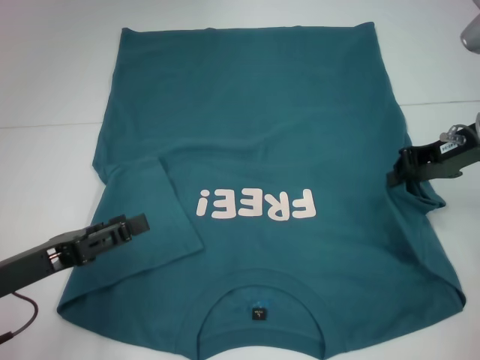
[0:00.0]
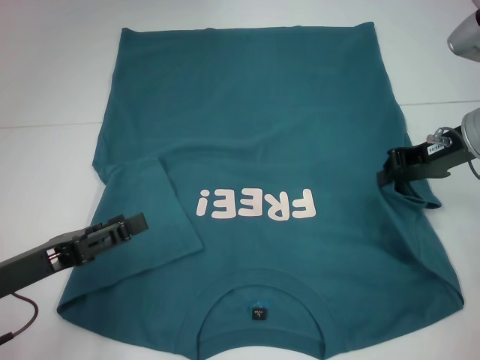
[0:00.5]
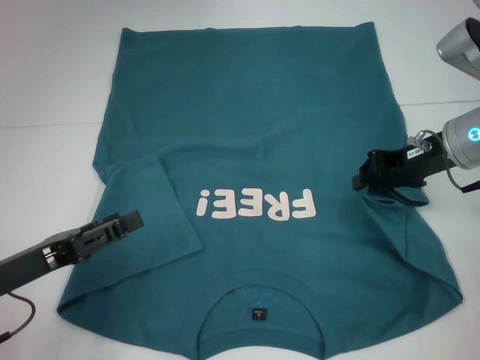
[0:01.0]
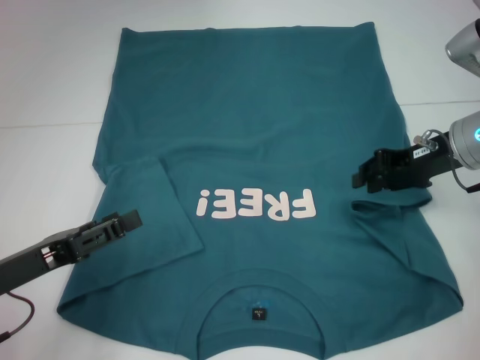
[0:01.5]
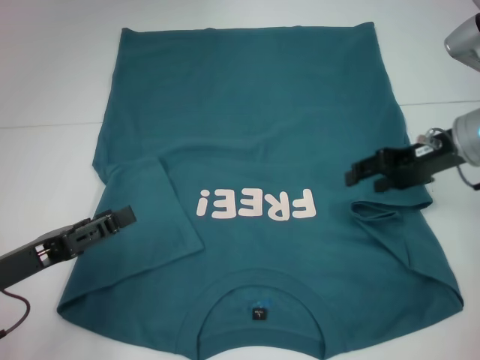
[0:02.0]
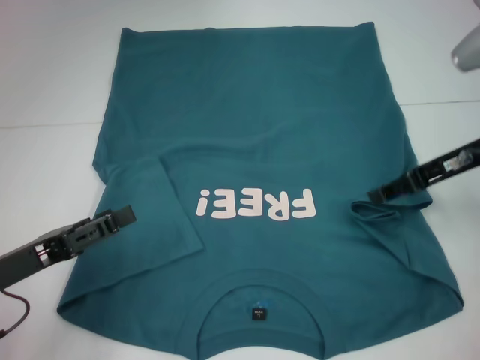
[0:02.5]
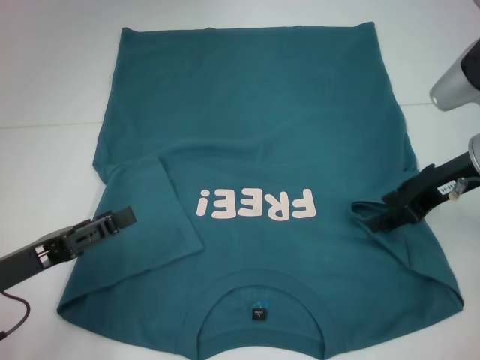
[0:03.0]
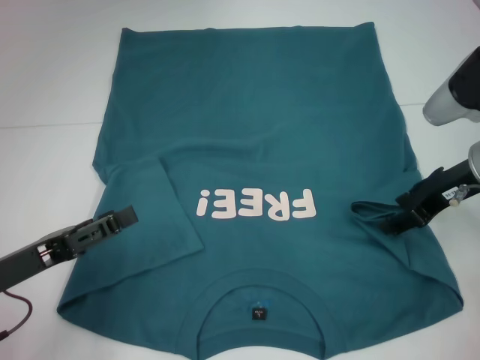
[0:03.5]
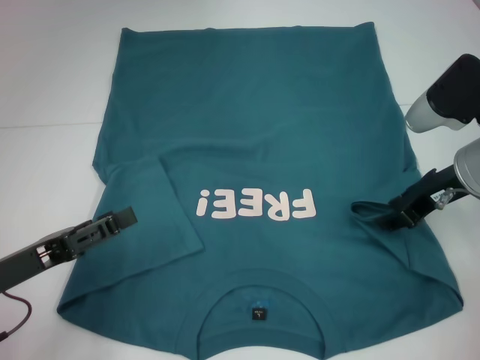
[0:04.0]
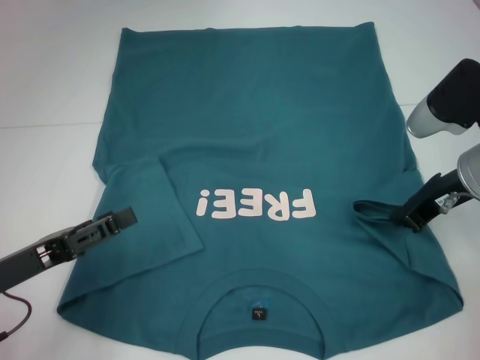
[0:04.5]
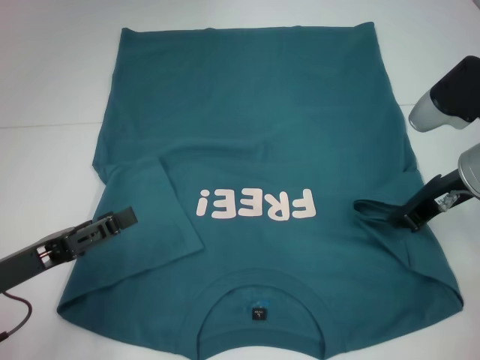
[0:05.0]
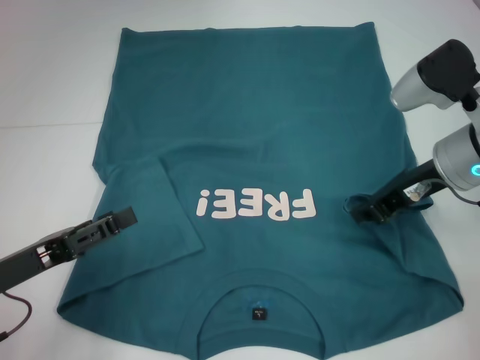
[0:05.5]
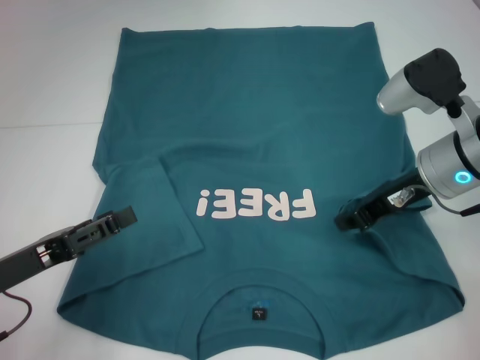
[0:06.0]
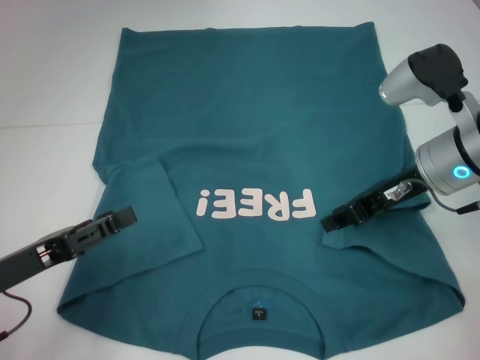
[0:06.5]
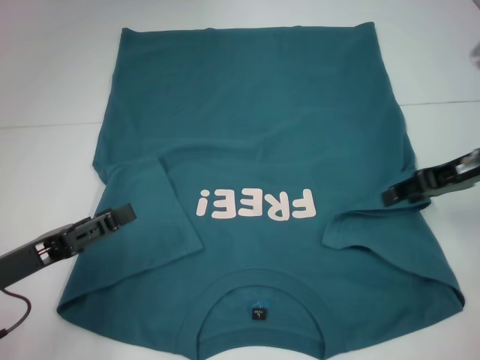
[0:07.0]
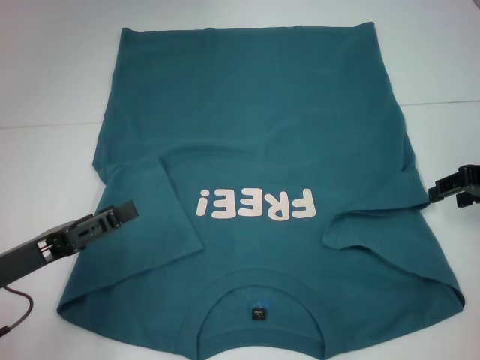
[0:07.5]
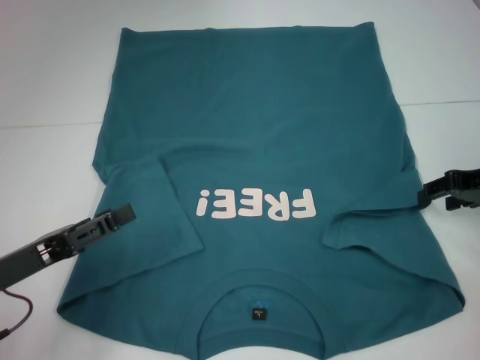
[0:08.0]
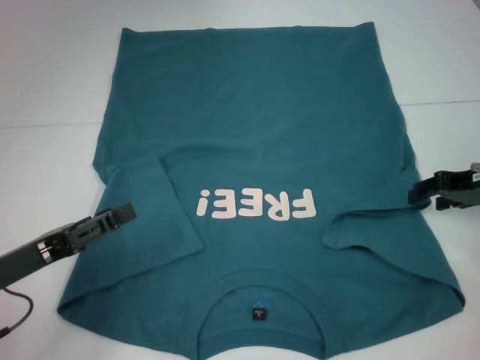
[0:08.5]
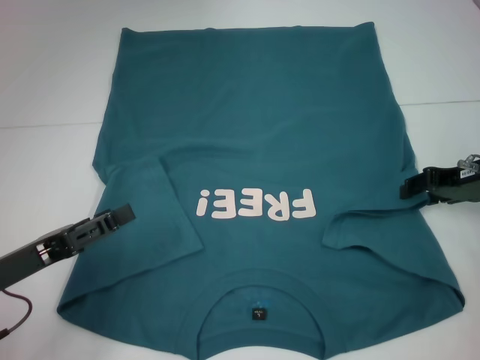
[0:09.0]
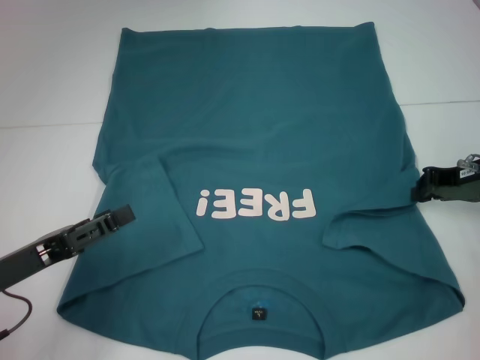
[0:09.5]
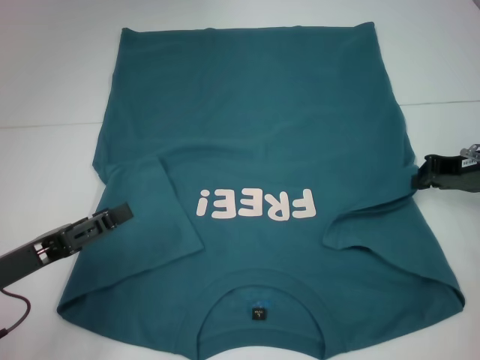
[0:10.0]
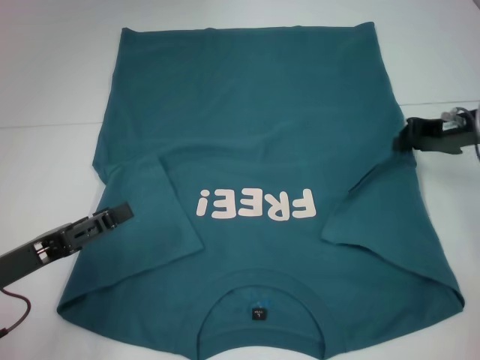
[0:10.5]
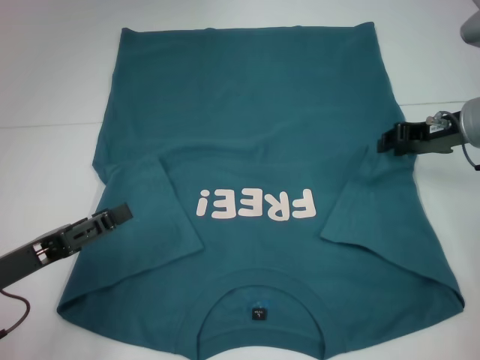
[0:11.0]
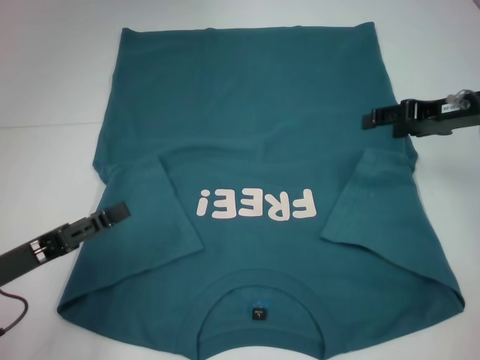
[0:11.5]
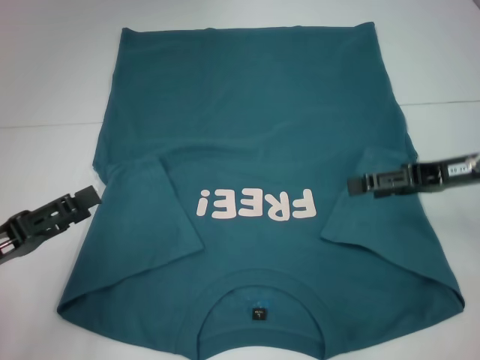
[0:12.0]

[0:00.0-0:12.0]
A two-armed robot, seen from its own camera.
Step, 0:00.0 to 0:11.0: Fold the bottom right sleeve to the right.
0:00.0 to 0:02.0: The right gripper opens.
0:04.0 to 0:06.0: The right gripper closes.
0:06.0 to 0:08.0: The right gripper travels to the right by some 10 cm, and opens its fingers.
0:08.0 to 0:10.0: The right gripper closes.
0:10.0 to 0:12.0: The right gripper opens its fingers.

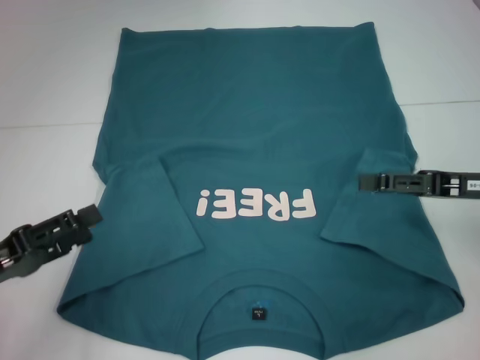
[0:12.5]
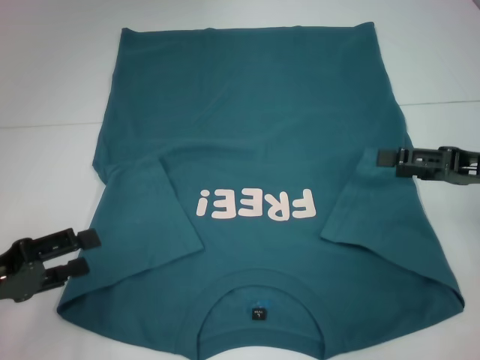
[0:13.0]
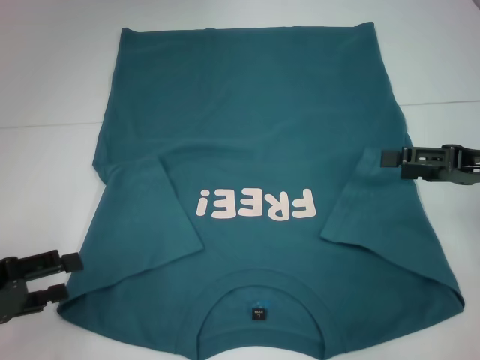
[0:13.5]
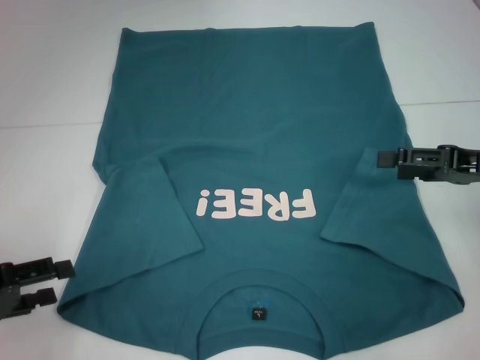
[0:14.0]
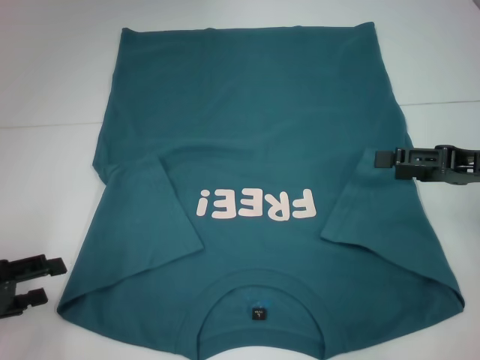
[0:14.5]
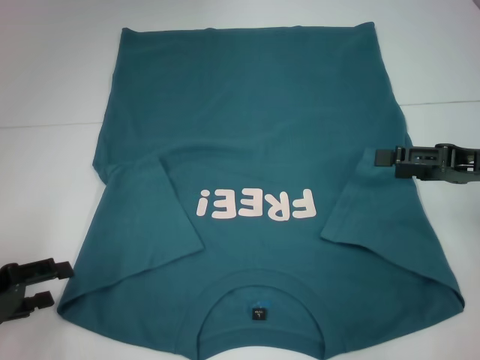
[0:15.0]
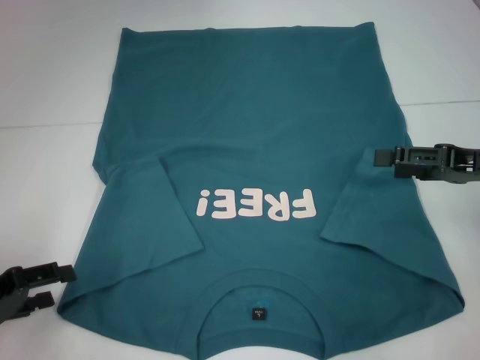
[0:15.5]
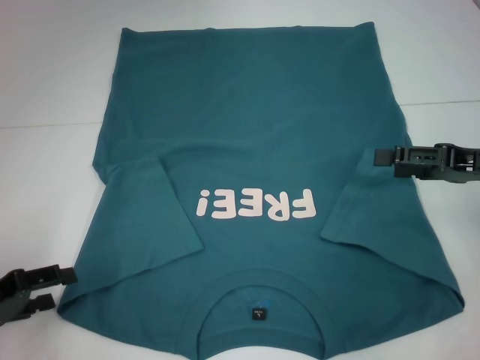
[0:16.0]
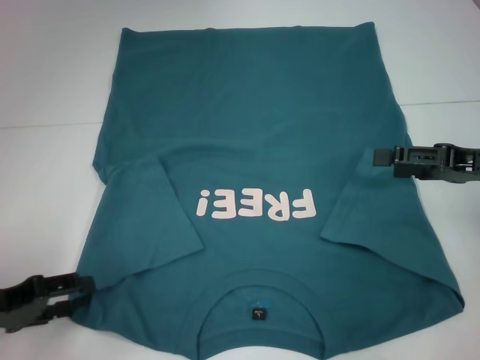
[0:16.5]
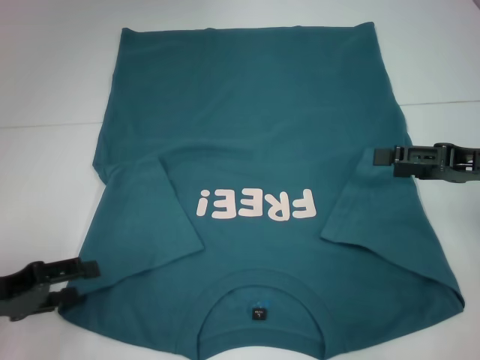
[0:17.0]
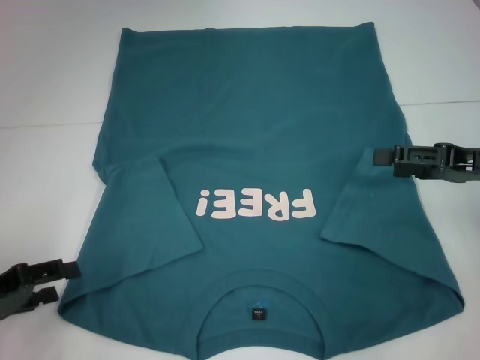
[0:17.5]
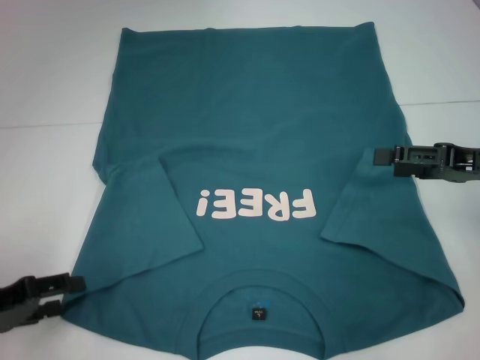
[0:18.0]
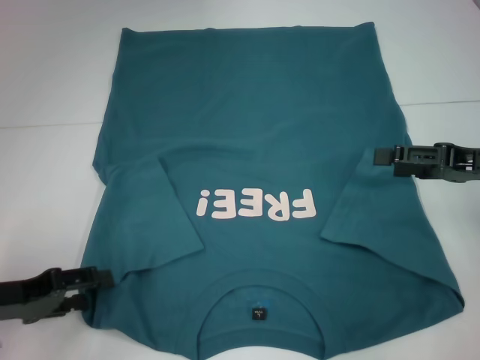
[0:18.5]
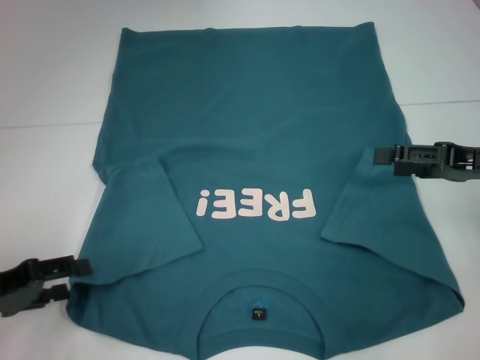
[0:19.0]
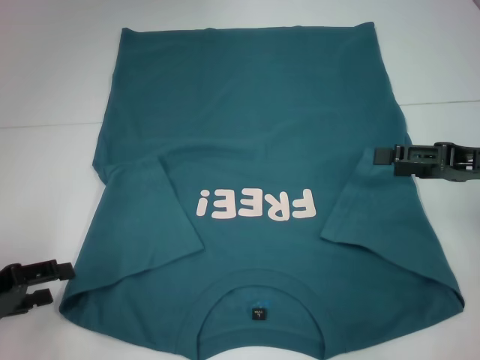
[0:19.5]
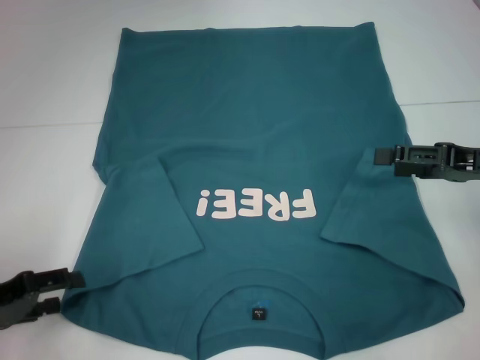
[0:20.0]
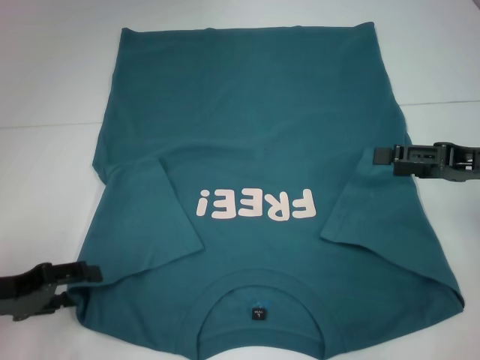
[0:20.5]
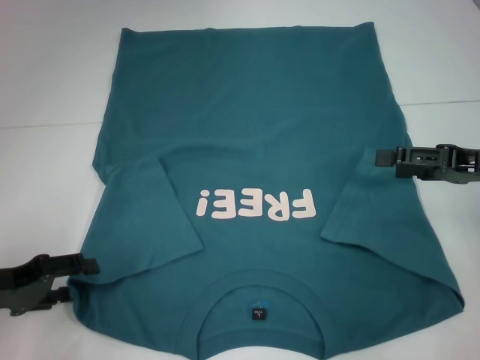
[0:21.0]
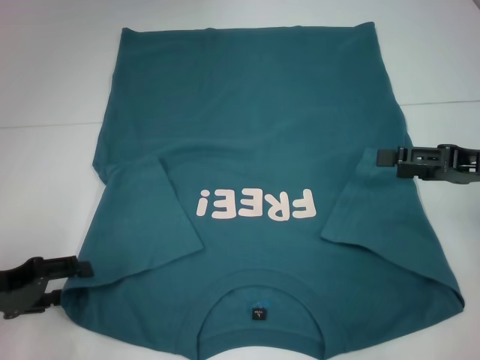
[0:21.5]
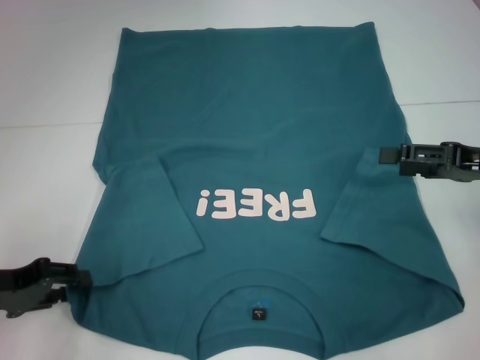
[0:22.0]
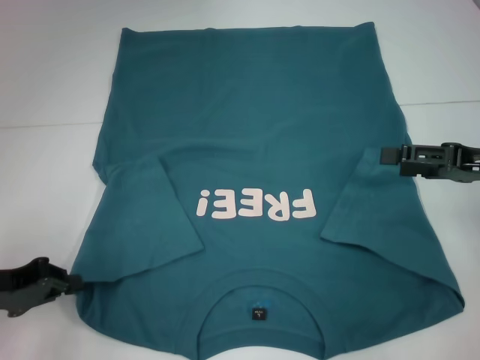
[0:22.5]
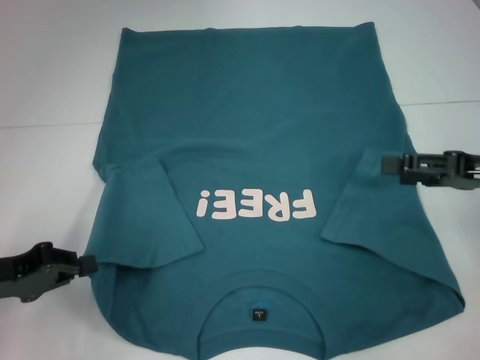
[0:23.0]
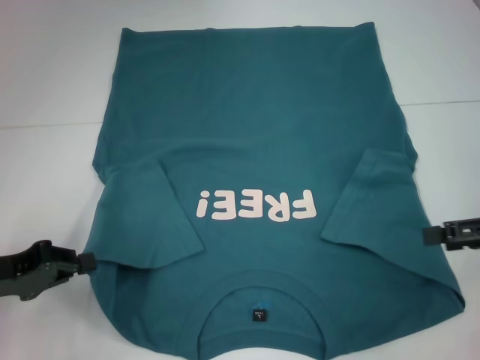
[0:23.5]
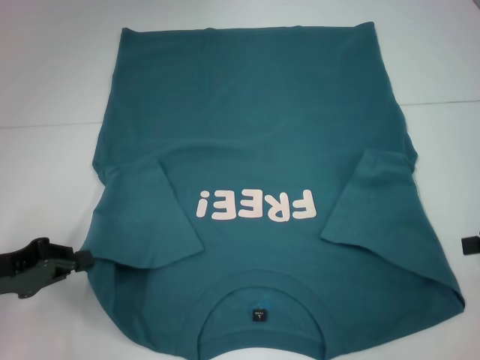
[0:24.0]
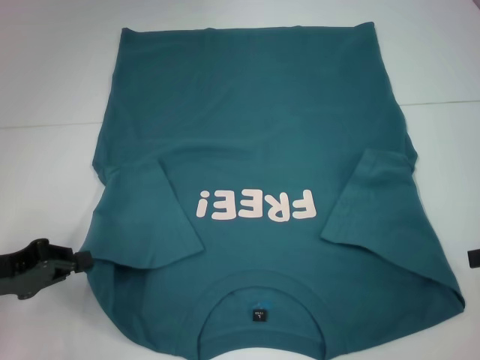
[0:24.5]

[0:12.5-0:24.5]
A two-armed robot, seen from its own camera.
Step, 0:12.5 to 0:22.0: Grab the bottom left corner with your left hand.
0:14.5 to 0:20.5: There are only small adjustments of the grippers.
0:20.5 to 0:22.5: The left gripper closes up.
0:22.5 to 0:24.5: The right gripper is displaced to the right and backward by some 10 cm.

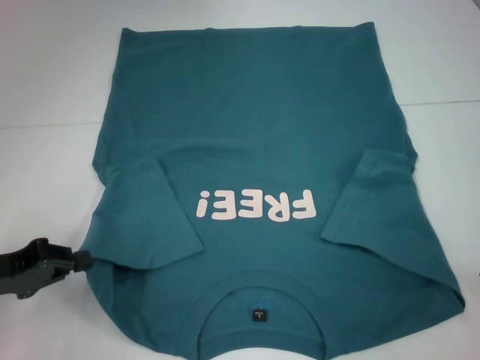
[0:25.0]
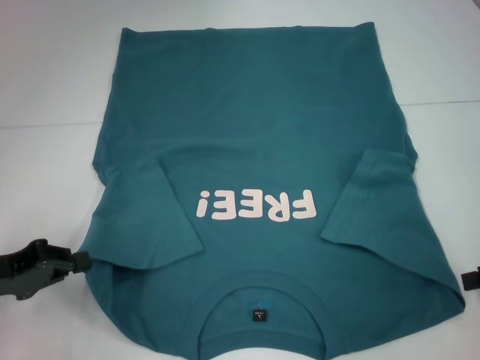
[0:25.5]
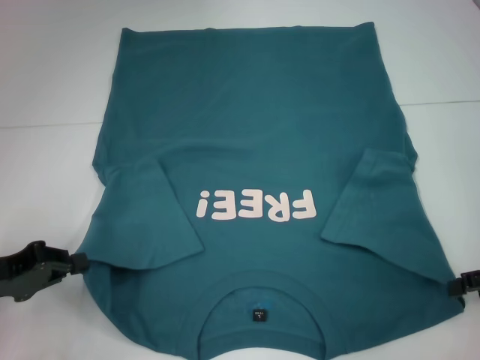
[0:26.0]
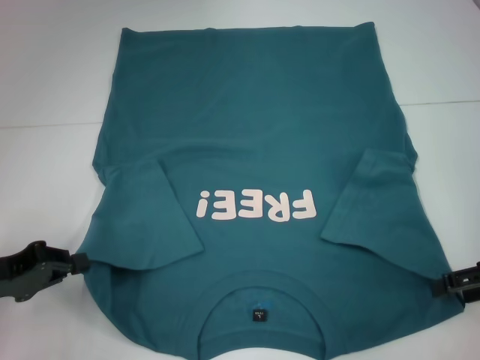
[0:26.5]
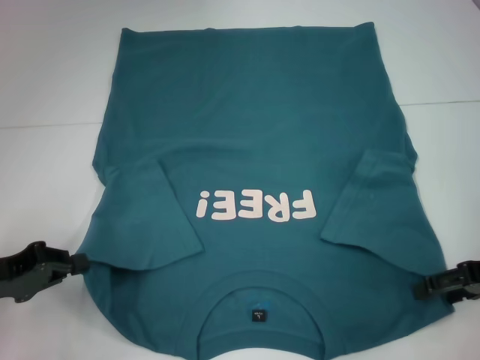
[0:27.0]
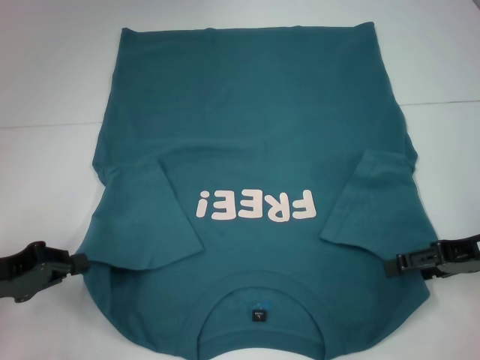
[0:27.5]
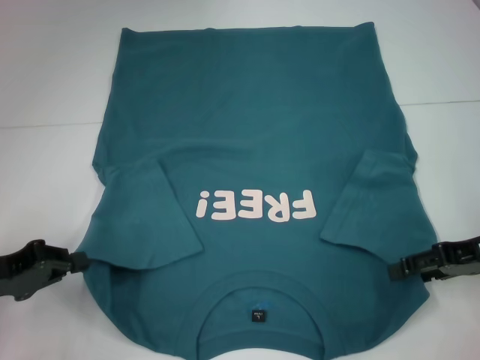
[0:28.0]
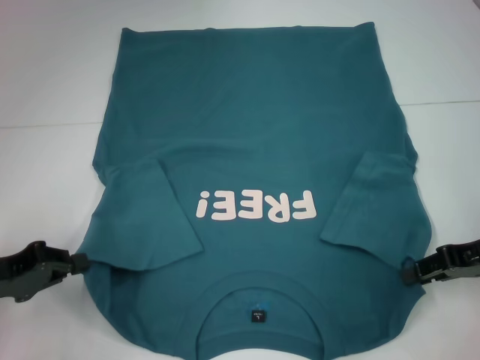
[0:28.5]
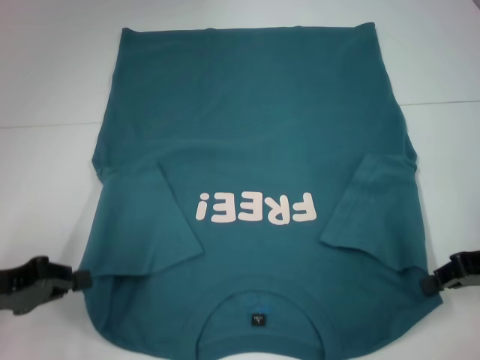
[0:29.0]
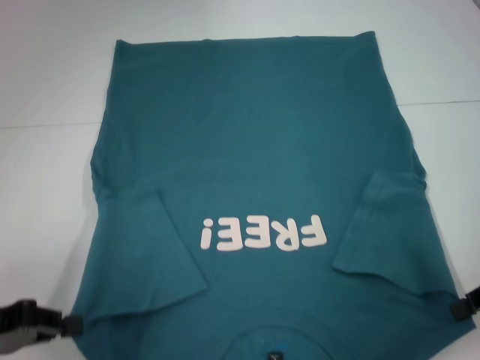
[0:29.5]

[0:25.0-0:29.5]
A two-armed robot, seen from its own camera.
Step, 0:25.0 to 0:28.5: Grab the bottom right corner with your right hand.
0:25.0 to 0:27.0: The right gripper shifts about 5 cm to the left.
0:27.0 to 0:29.5: The right gripper closes its fingers.
